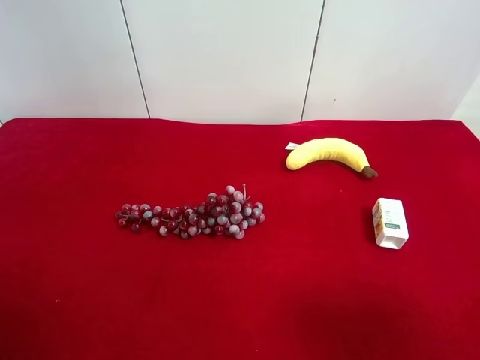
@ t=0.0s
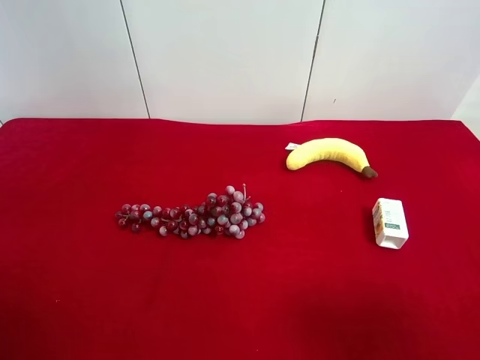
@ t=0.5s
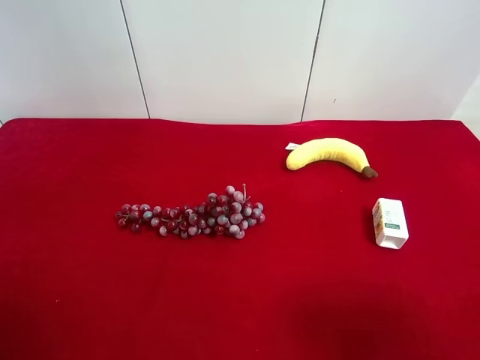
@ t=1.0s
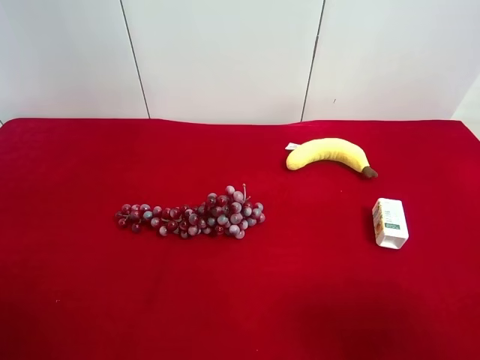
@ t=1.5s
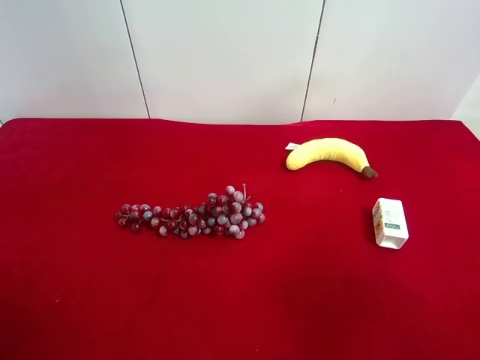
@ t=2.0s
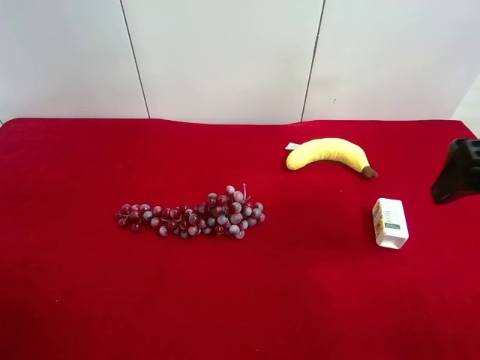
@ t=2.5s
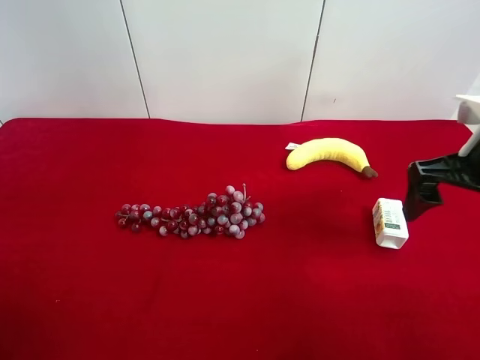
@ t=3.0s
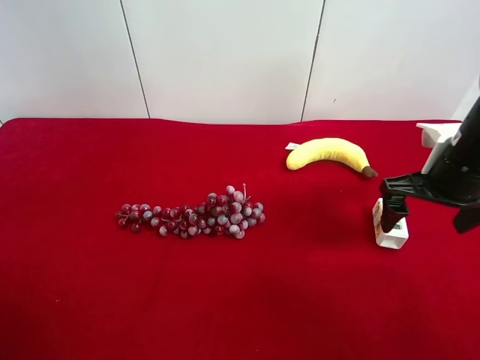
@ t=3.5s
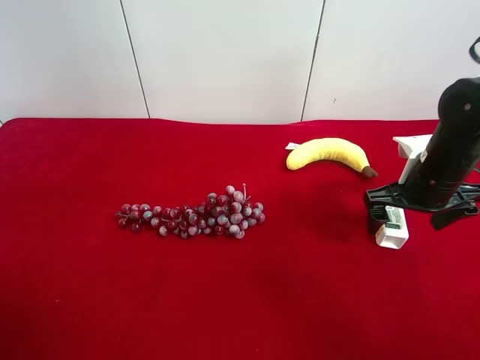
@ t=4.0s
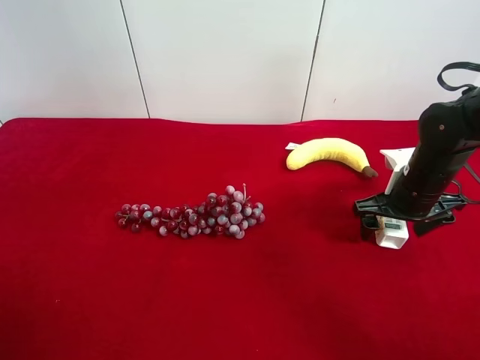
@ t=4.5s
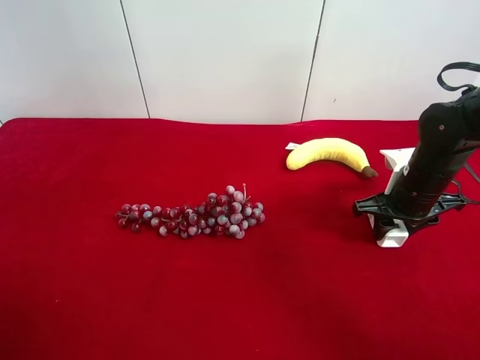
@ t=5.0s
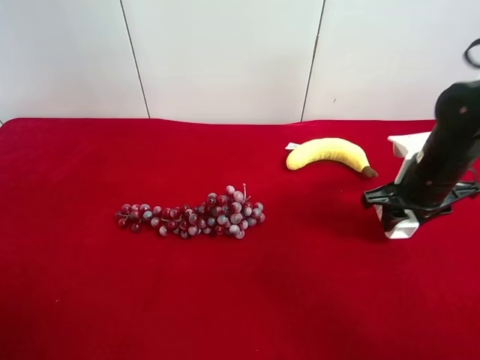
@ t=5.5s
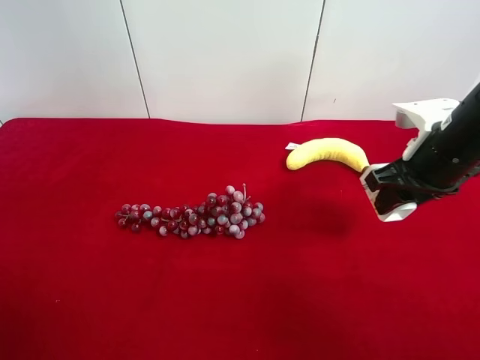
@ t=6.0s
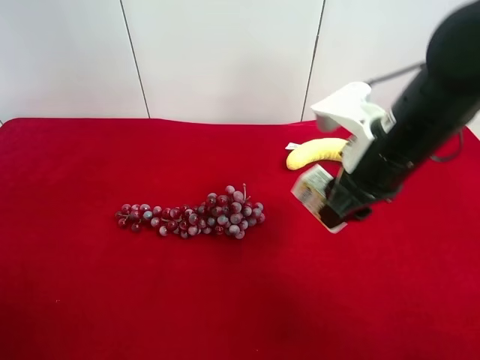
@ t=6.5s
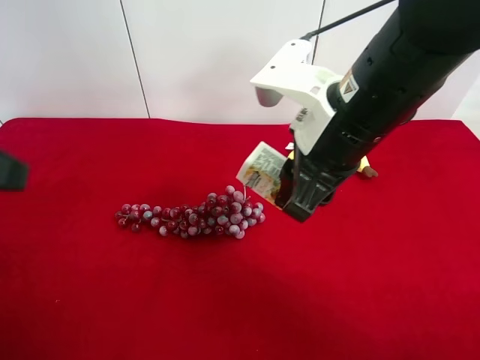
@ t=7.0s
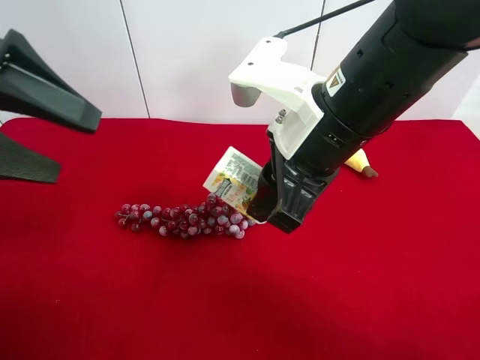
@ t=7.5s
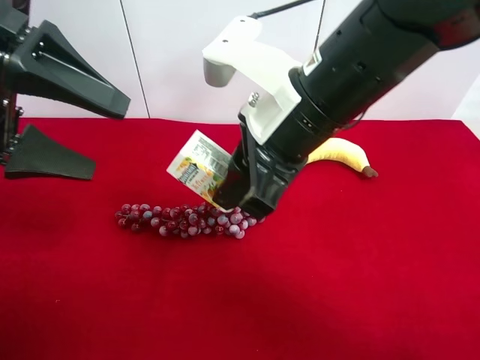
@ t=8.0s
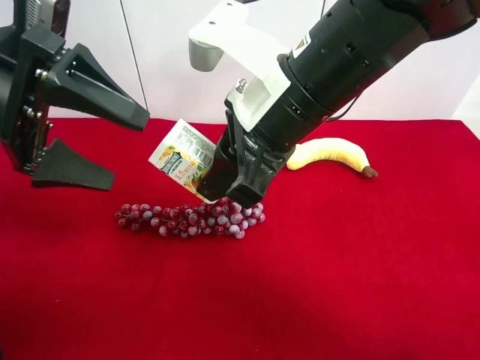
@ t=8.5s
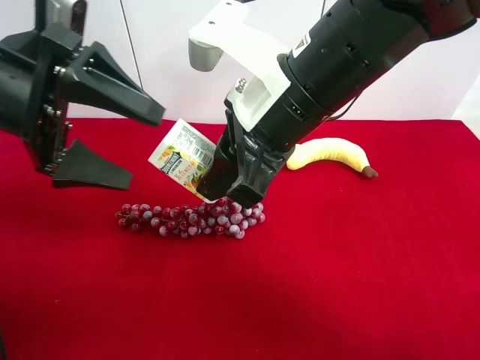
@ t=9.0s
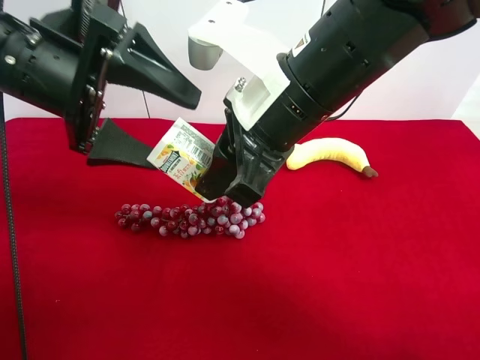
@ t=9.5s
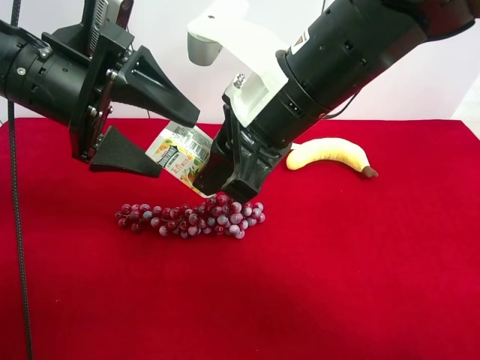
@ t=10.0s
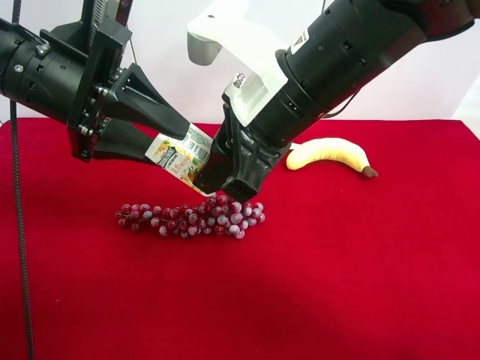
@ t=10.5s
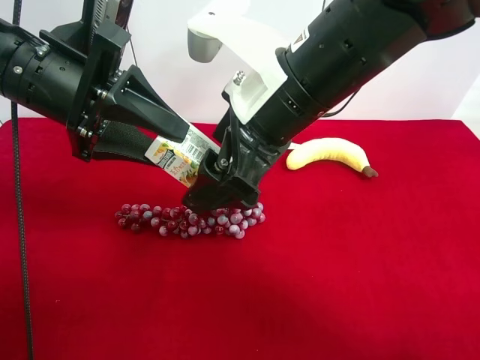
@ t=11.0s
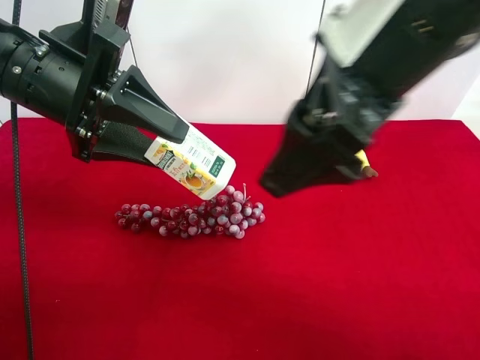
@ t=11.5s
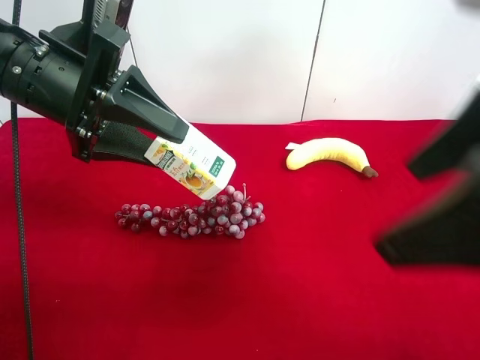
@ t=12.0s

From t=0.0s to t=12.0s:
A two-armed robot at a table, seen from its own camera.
Task of the whole recording: use the right gripper to pick up the item and transfer it from the right gripper to the left gripper.
Step, from t=0.0s to t=4.5s: Use the right gripper to grab the square chewing gum on the right side of the table.
Step, from t=5.0s to t=11.0s: Pass the square chewing gum to the left gripper.
From t=2.0s to t=4.0s: The right gripper heads forward and downward, covering some 30 cm.
From t=4.0s to t=6.0s: The right gripper is displaced upward by roughly 5 cm, and closes up.
From t=6.0s to t=8.0s: The right gripper travels to the left and upward by about 20 cm. Meanwhile the left gripper moves forward, some 20 cm.
From t=8.0s to t=10.0s: The left gripper moves roughly 5 cm.
From t=10.0s to t=12.0s: The left gripper closes its fingers; the right gripper travels to the right, backward and upward by about 20 cm, and opens.

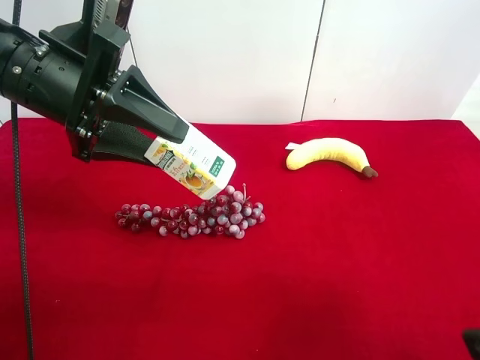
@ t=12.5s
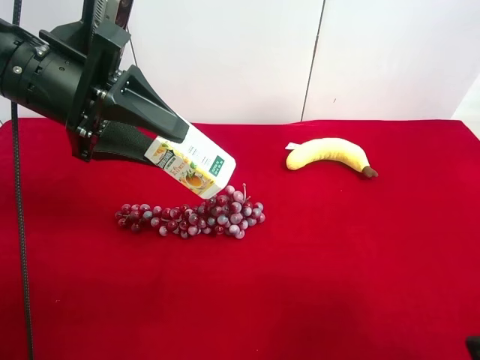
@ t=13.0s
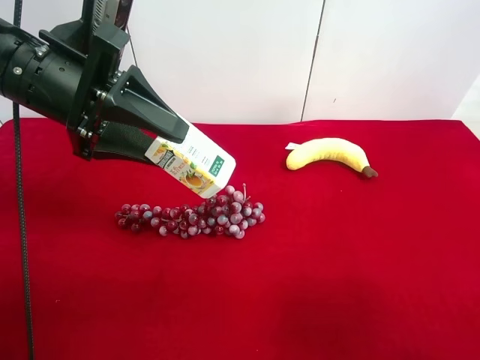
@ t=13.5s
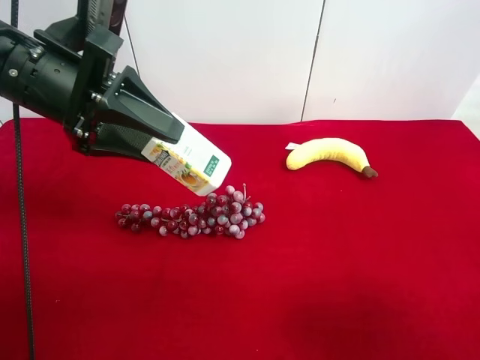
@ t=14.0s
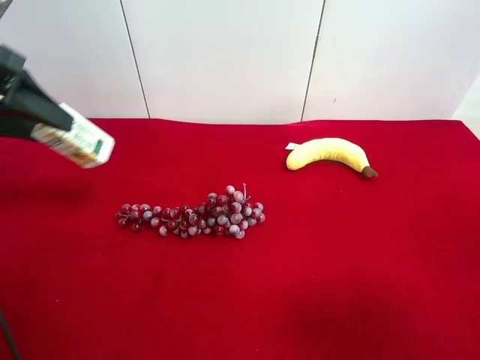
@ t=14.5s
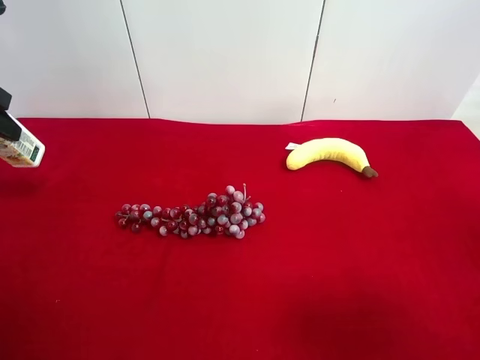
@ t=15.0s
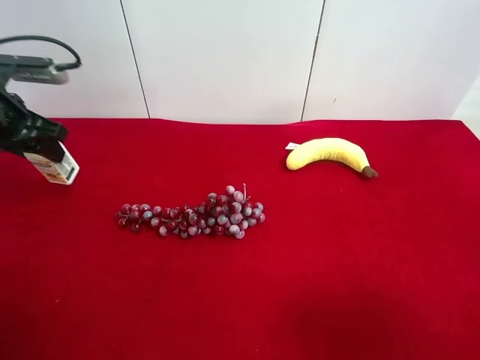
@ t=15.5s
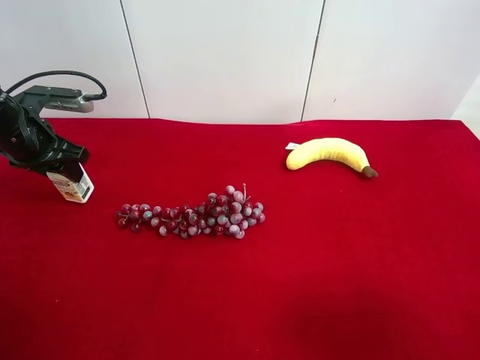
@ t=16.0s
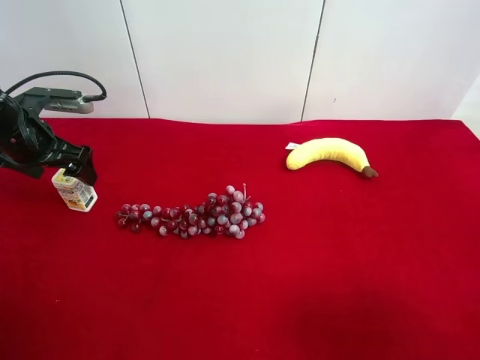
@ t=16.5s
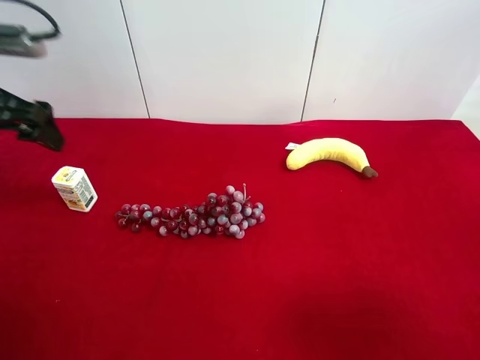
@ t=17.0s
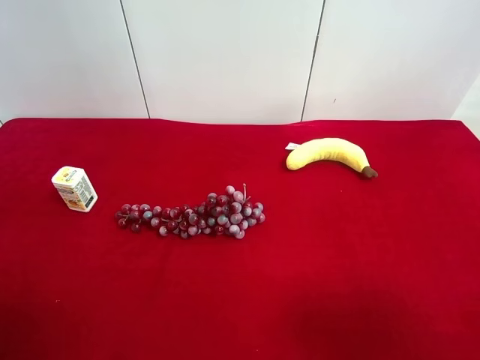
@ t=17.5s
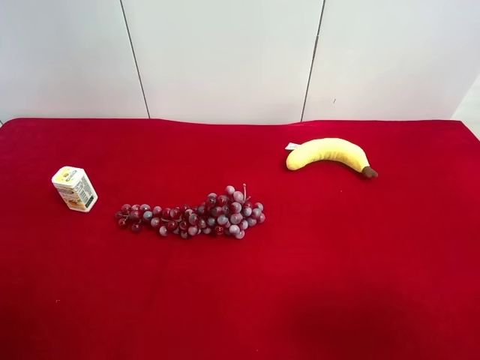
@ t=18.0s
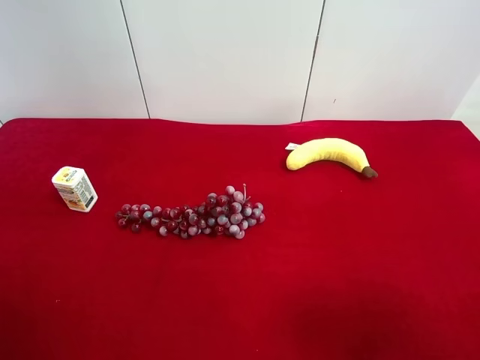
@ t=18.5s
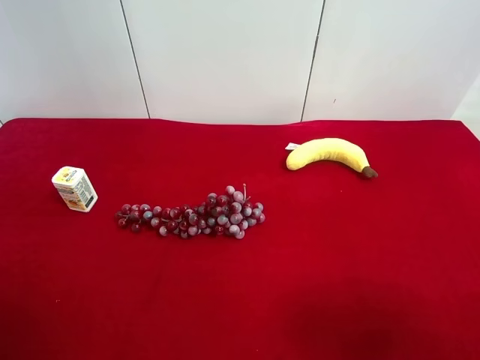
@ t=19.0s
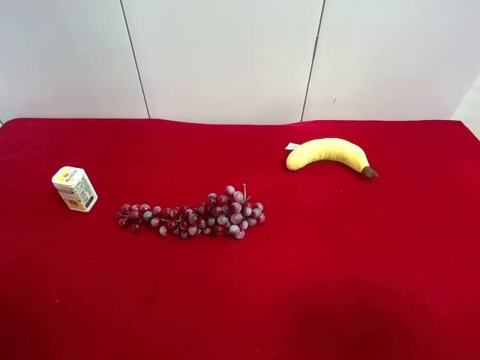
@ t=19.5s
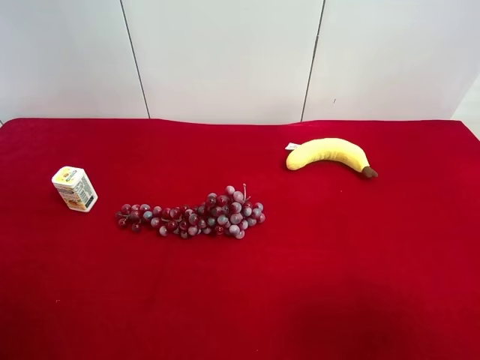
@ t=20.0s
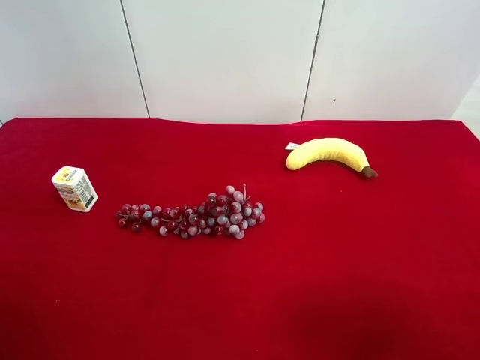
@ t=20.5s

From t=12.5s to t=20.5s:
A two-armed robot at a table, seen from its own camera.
Task of the whole recording: use the right gripper to pick up the item and transfer it from the right gripper to the left gripper.
Step, from t=12.5s to t=16.0s: The left gripper places square chewing gum on the left side of the table.
From t=12.5s to t=14.5s: The left gripper is displaced to the left by some 15 cm.
From t=14.5s to t=16.5s: The left gripper travels downward and forward by roughly 15 cm, and opens up.
From t=16.5s to t=18.5s: The left gripper shifts approximately 35 cm backward.
From t=18.5s to t=20.5s: Both grippers stay about where they are.
